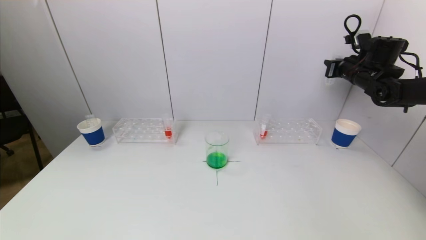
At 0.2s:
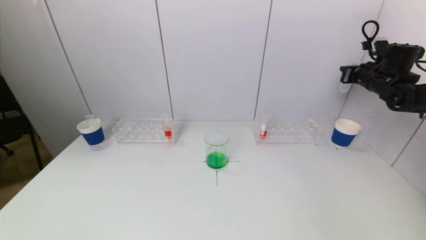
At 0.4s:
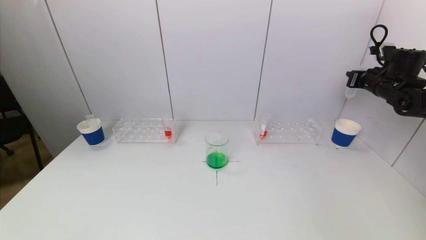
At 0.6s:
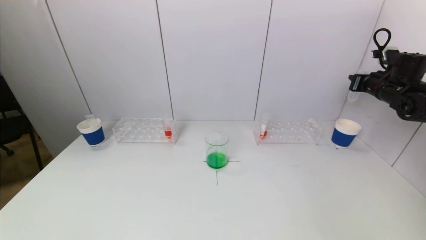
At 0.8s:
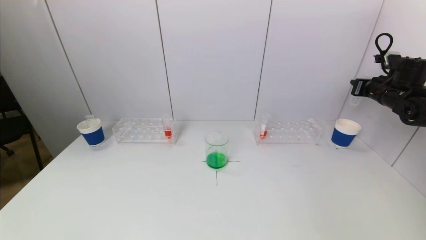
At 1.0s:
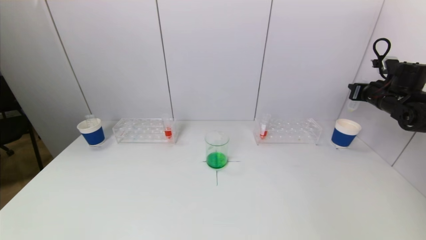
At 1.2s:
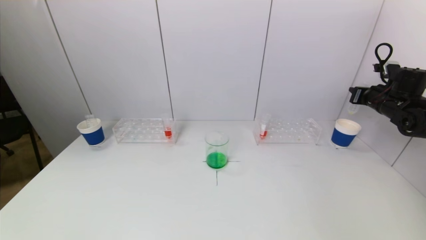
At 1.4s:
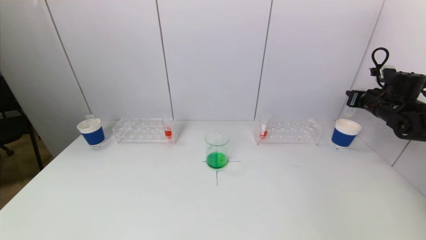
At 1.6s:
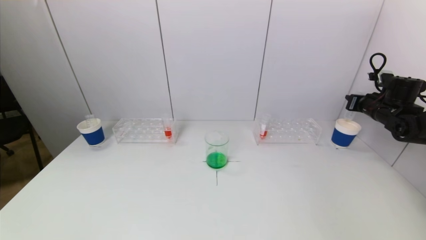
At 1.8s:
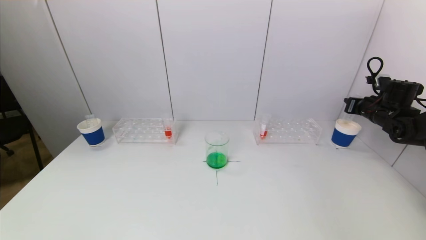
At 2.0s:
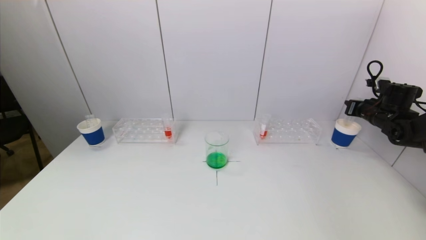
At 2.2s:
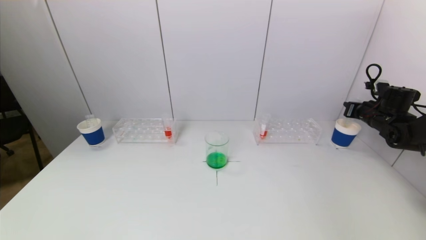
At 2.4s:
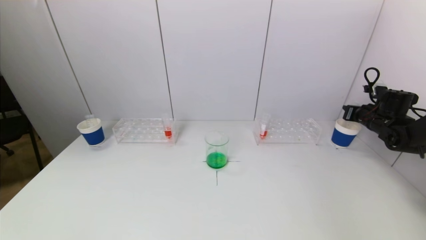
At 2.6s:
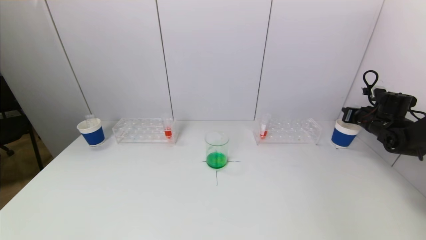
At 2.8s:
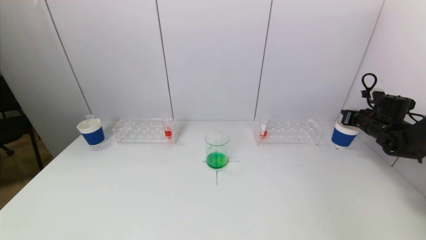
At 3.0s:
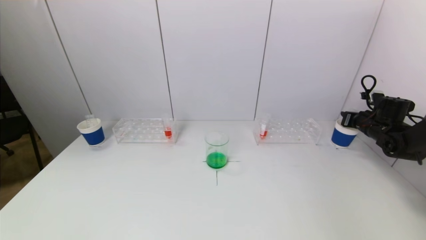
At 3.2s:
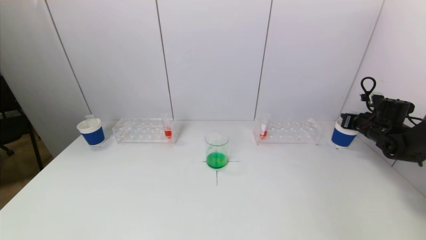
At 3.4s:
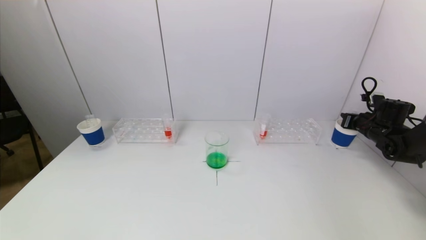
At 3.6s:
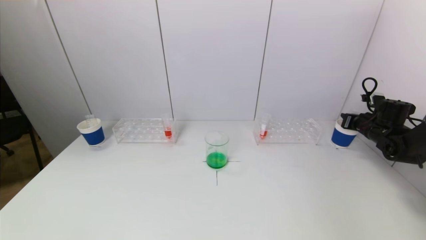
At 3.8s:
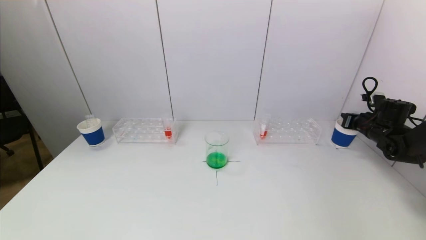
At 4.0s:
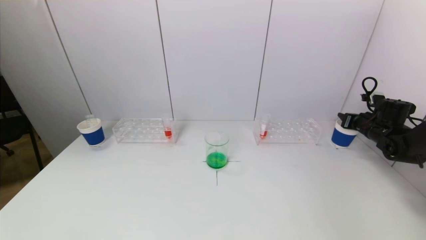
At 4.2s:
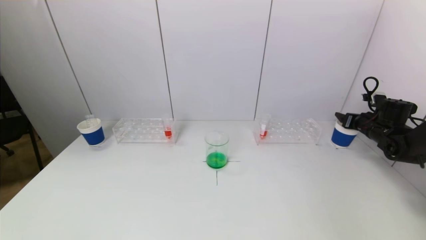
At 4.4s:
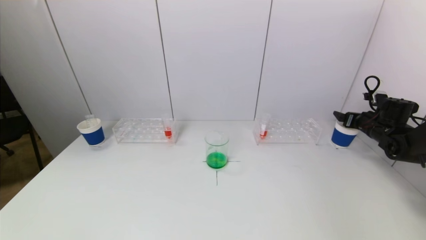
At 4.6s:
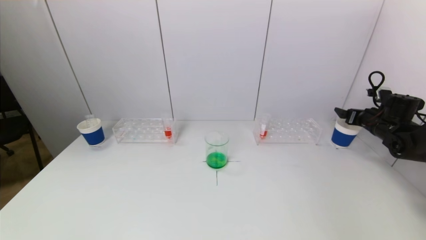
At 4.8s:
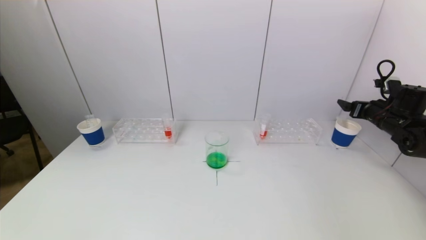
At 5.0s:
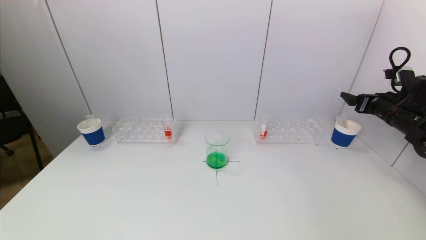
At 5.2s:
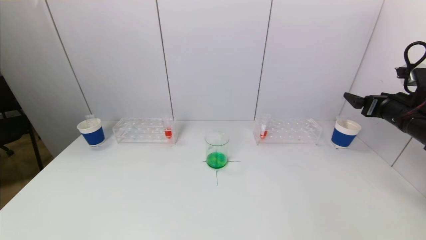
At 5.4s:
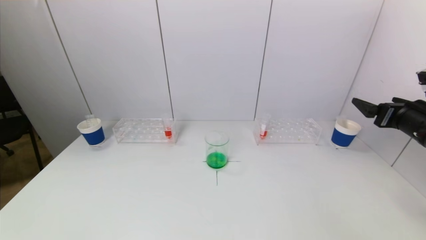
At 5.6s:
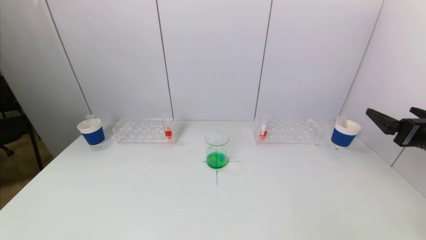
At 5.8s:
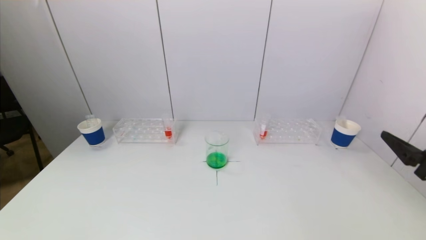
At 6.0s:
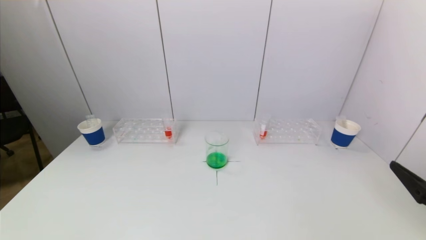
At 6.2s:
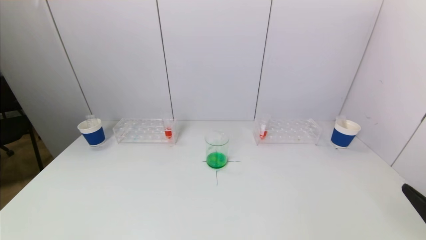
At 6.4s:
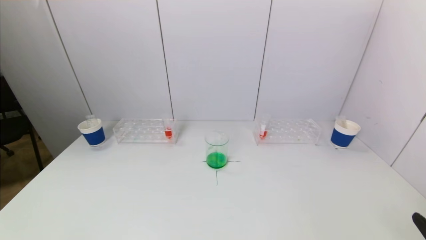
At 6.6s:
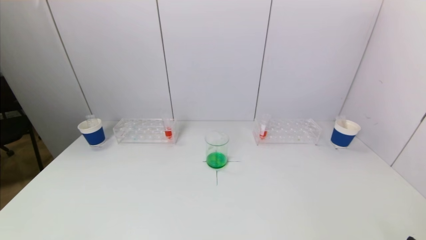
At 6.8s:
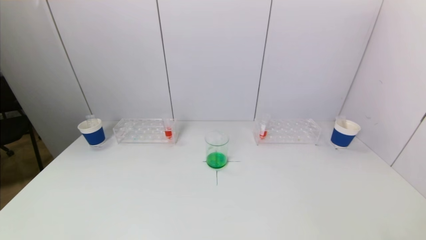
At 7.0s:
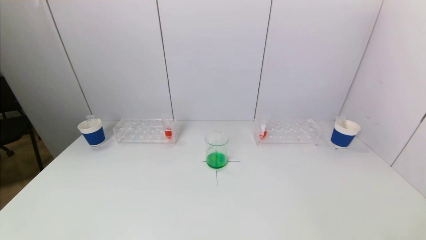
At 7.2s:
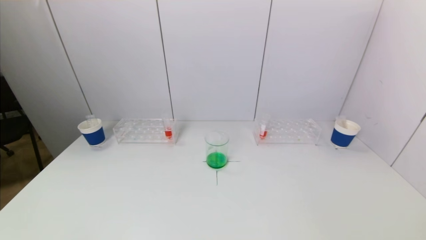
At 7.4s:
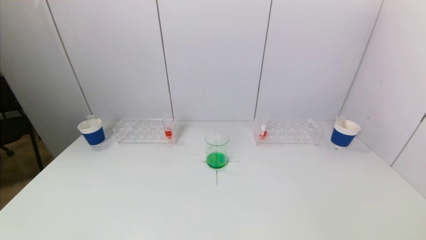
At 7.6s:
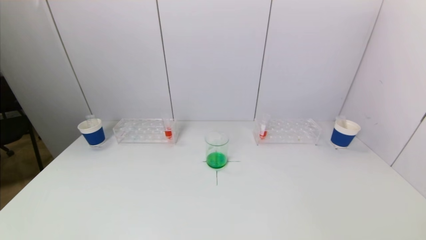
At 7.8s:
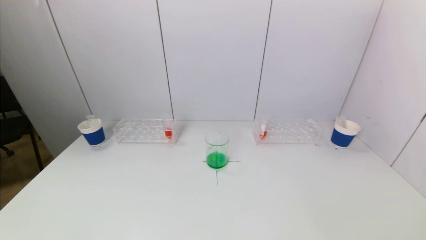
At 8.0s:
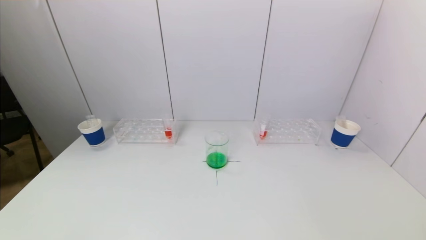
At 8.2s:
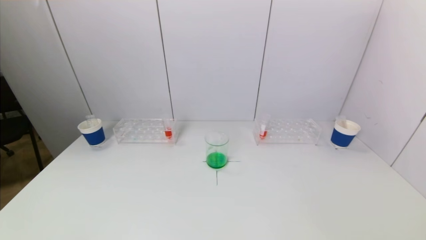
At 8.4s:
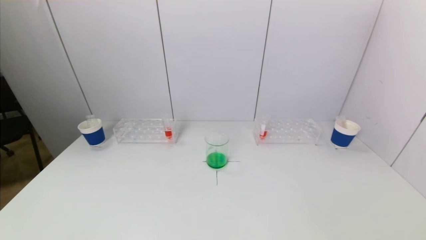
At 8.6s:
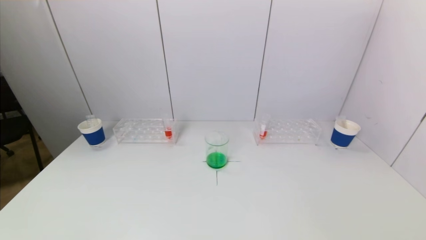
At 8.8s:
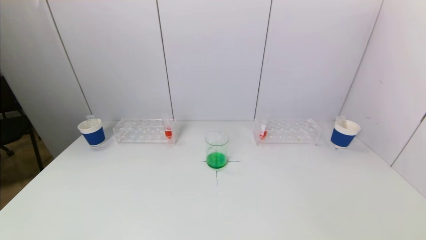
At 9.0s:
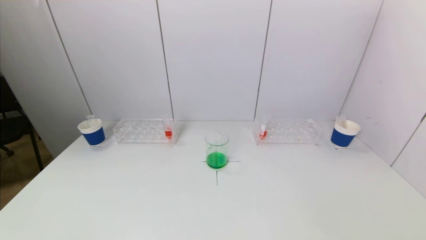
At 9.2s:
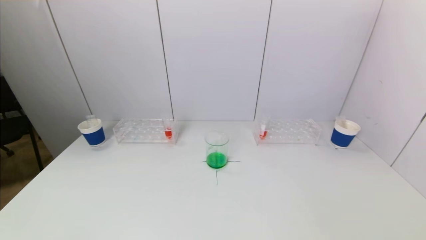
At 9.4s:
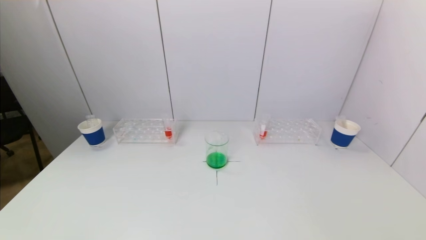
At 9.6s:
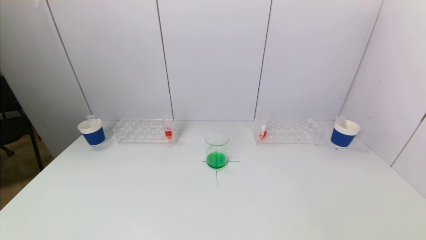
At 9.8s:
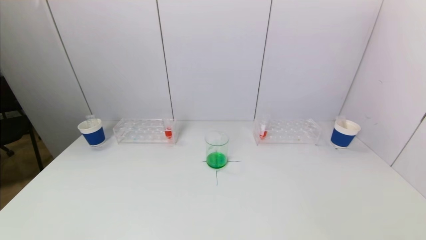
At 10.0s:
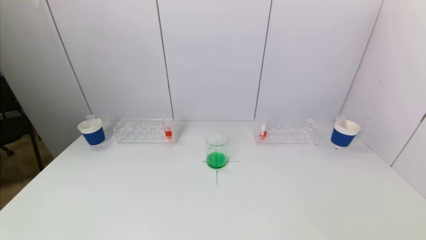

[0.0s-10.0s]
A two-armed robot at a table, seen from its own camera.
Task of the whole recording: pick up a test tube with pigment on left test tube rack and a test tube with pigment on right test tube rack by grippers and pour them into the beaker.
Step, 0.0s to 4.4s: Place the test tube into the paper cup with the right gripper.
0.0s to 1.4s: The right gripper shifts approximately 10 cm downward and to the right.
1.4s to 2.8s: The right gripper moves downward, some 5 cm.
2.8s to 4.2s: The right gripper opens.
4.2s to 5.8s: The right gripper goes roughly 30 cm backward.
5.8s to 7.2s: The right gripper is displaced backward and downward by approximately 20 cm.
8.6s to 10.0s: Neither gripper changes place.
